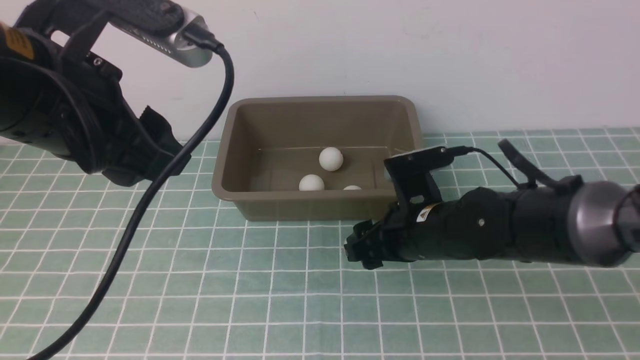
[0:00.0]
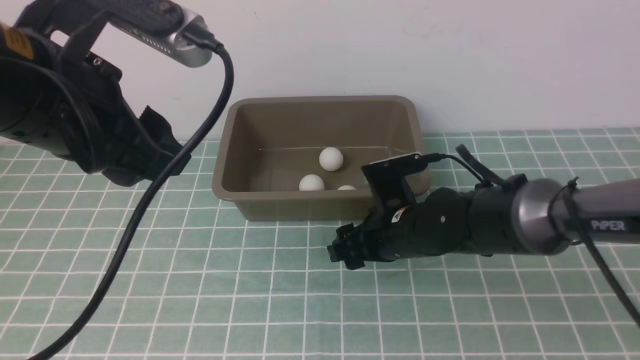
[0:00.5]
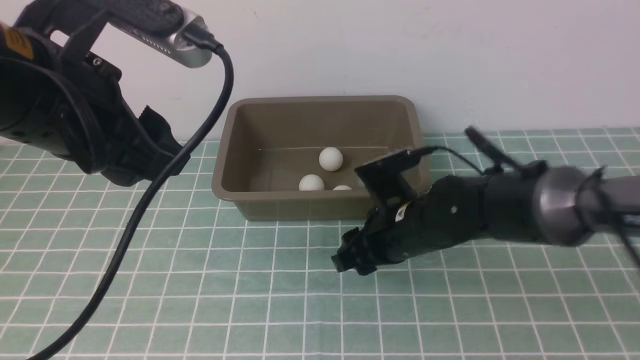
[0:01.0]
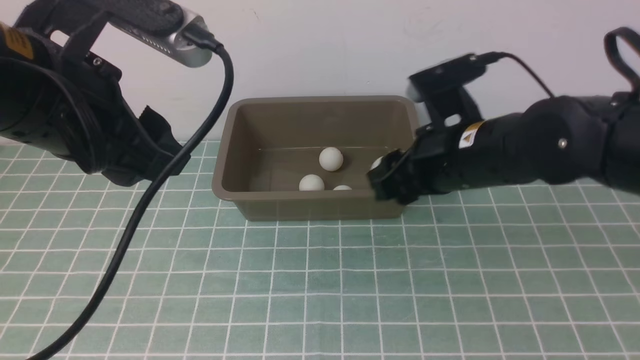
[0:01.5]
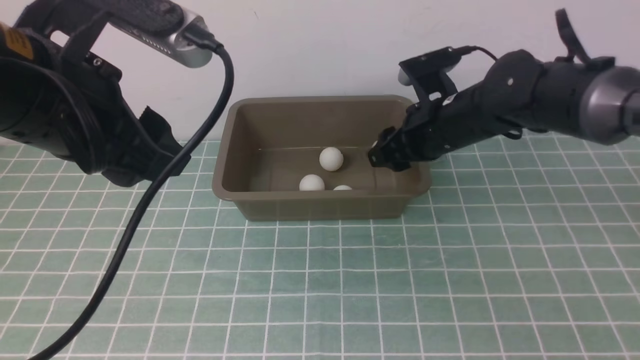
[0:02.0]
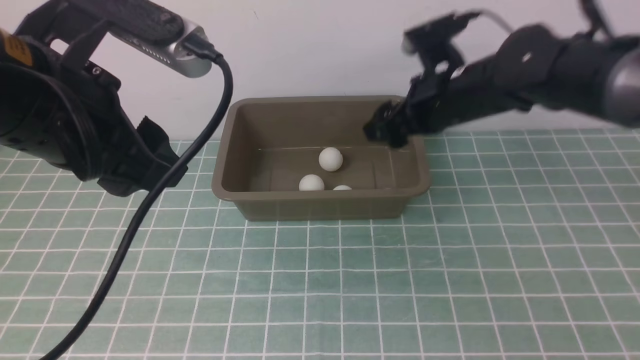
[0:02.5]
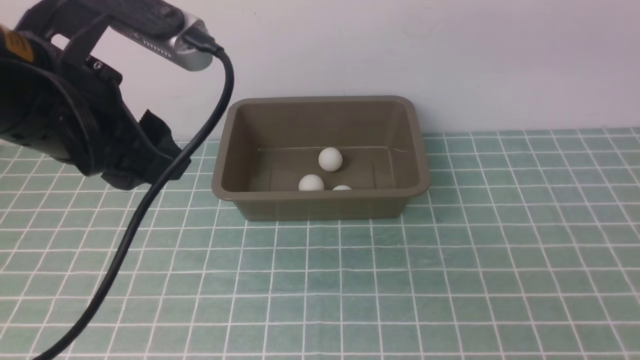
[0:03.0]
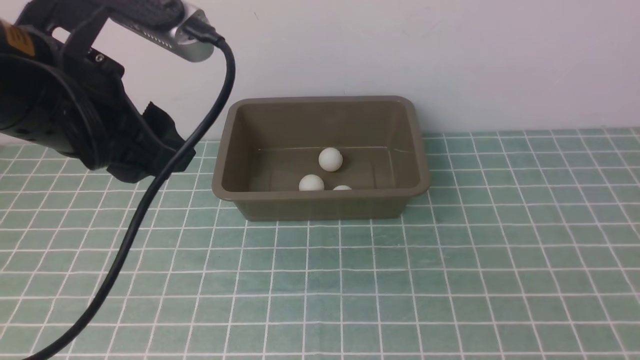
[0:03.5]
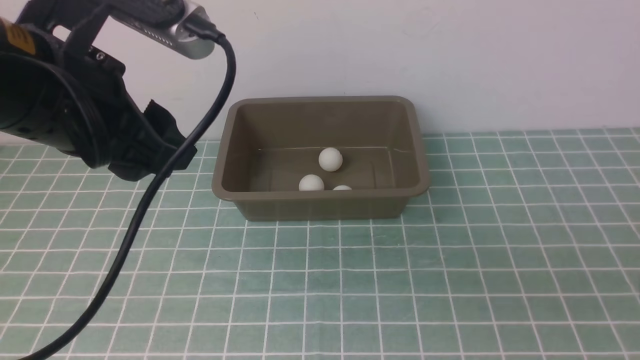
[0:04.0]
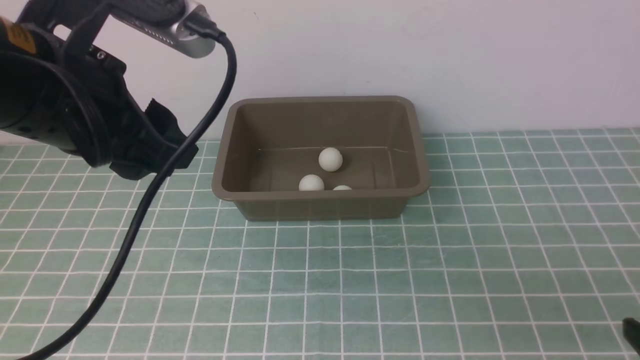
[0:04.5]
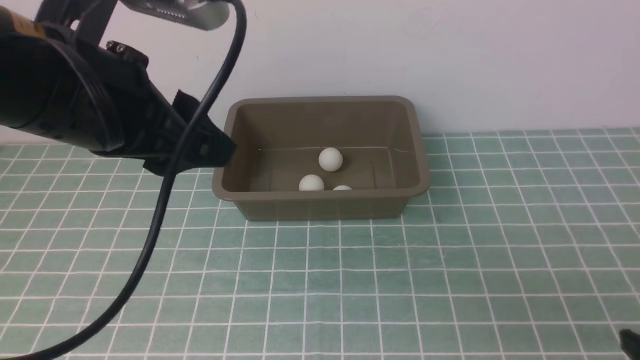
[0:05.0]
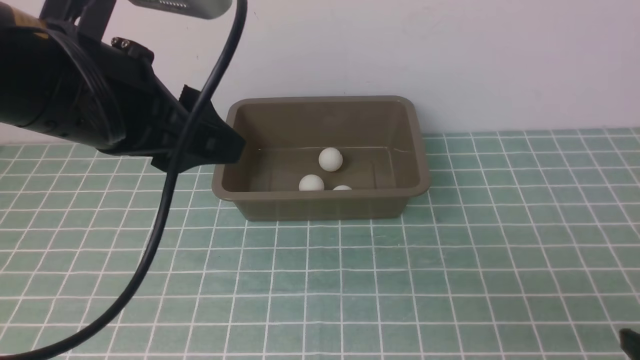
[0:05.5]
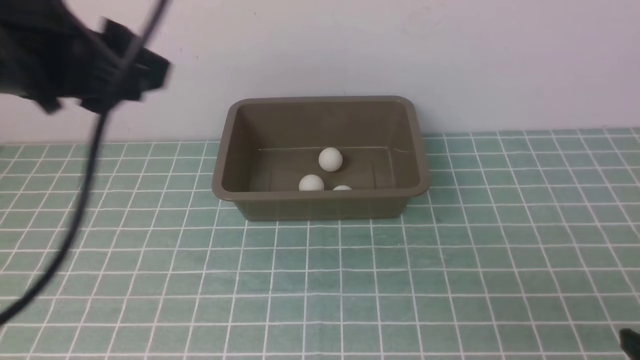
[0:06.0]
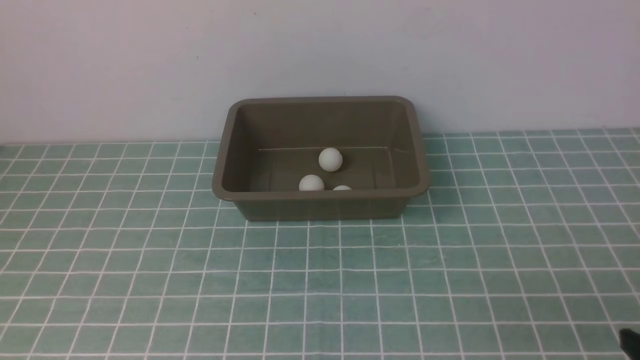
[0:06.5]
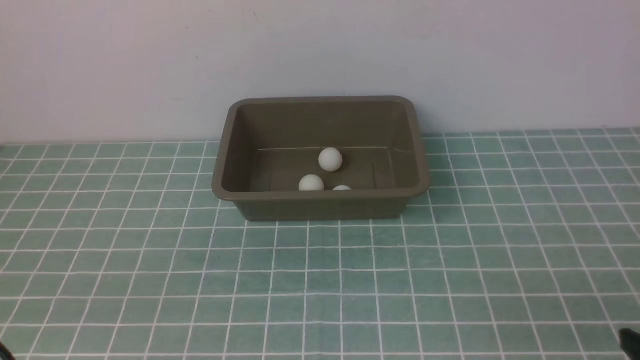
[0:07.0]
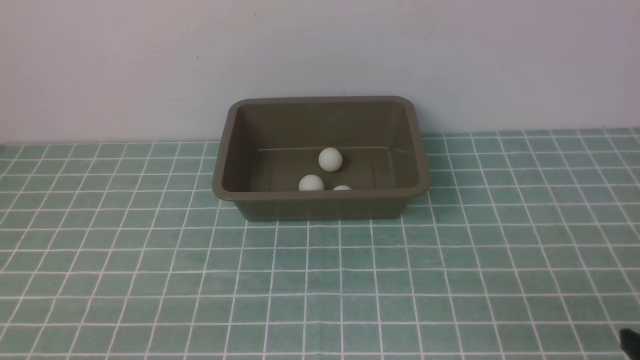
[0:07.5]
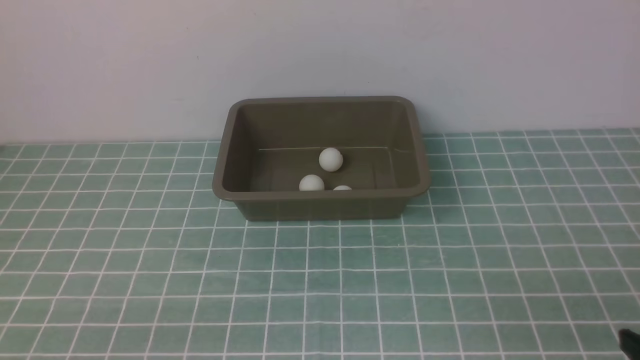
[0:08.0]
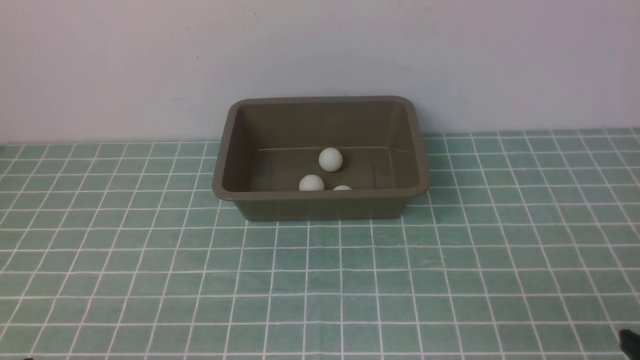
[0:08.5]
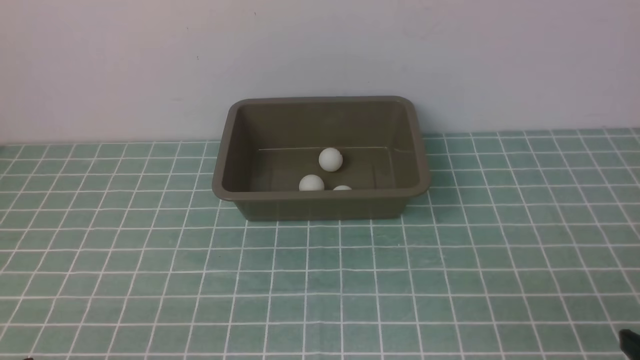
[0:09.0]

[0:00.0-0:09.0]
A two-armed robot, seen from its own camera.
Step, 0:01.5 to 0:02.5: use the right arm to put the table tennis ball into the box.
0:00.0 to 0:02.0: The right gripper shifts approximately 10 cm forward and upward.
0:02.0 to 0:04.5: The right gripper shifts roughly 40 cm backward and to the right.
0:04.5 to 0:07.0: The left gripper moves backward, downward and to the left, roughly 25 cm.

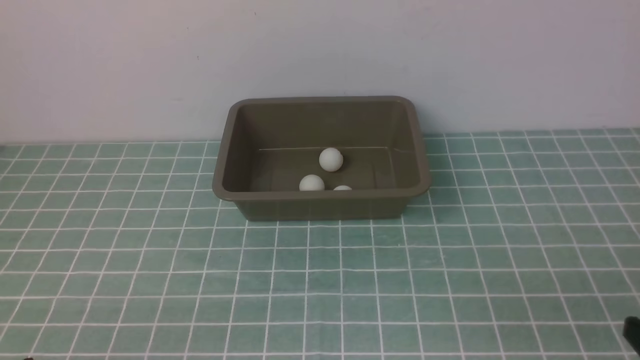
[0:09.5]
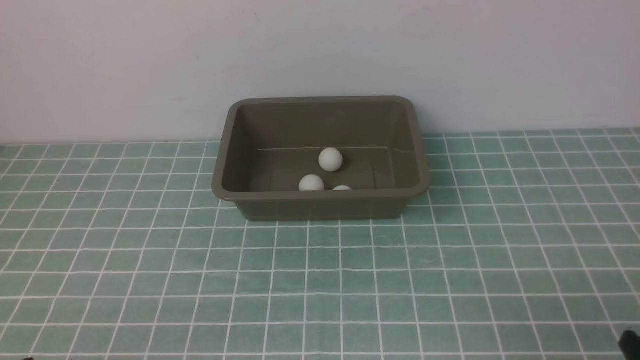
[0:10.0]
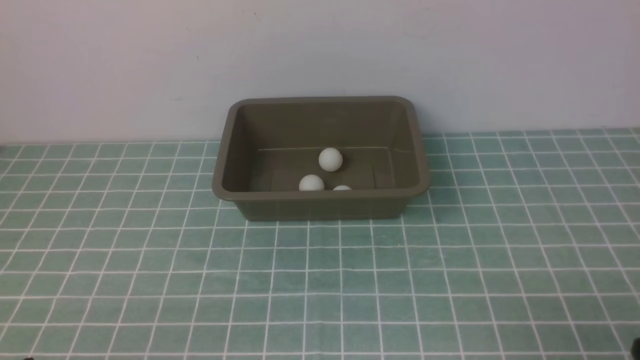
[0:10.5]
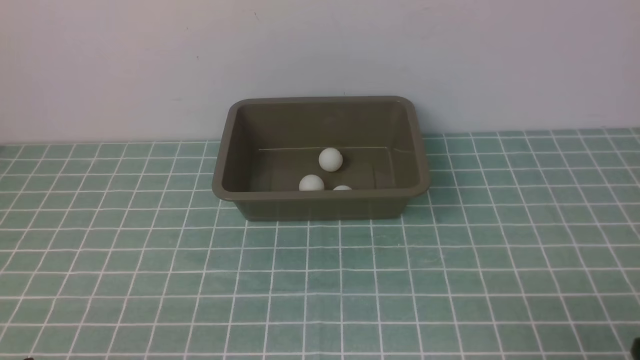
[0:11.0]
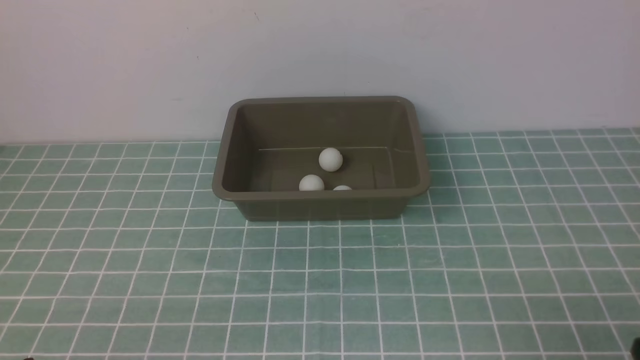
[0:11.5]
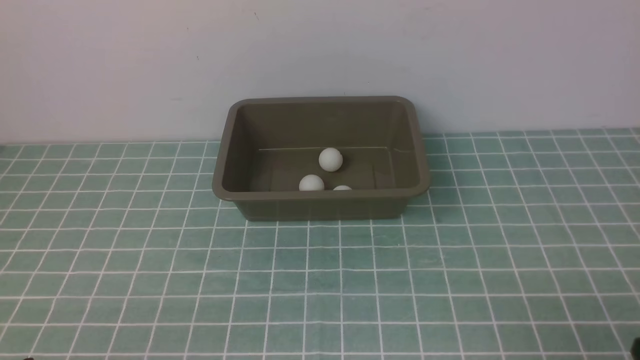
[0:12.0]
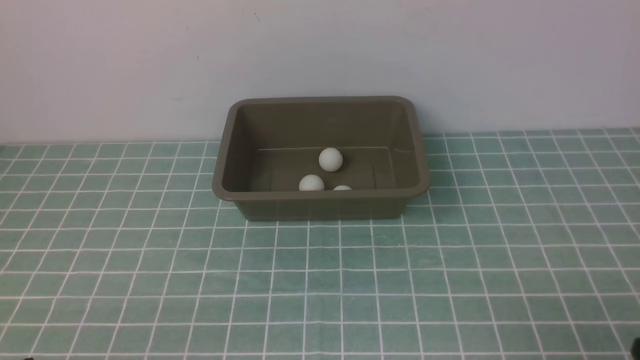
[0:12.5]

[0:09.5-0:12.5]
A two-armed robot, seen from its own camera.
0:11.0 to 0:12.5: The two grippers keep their place.
